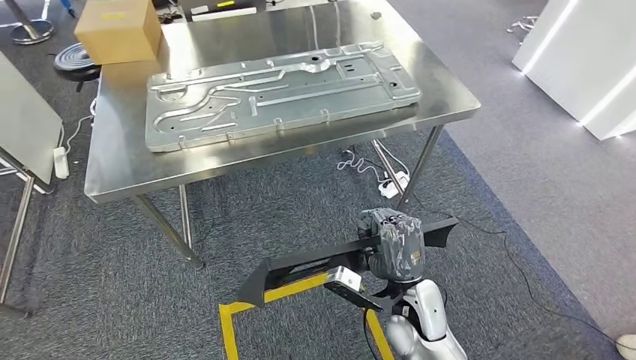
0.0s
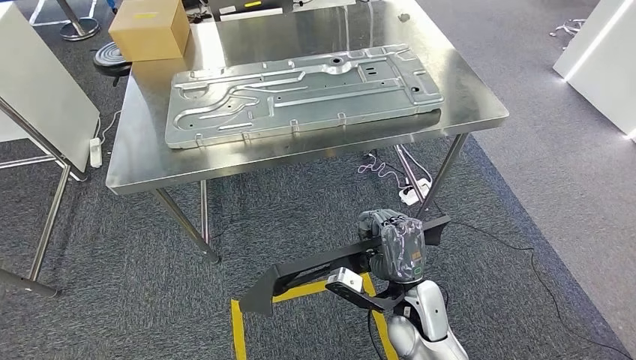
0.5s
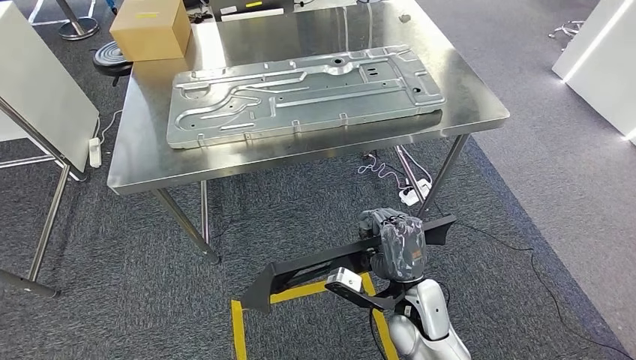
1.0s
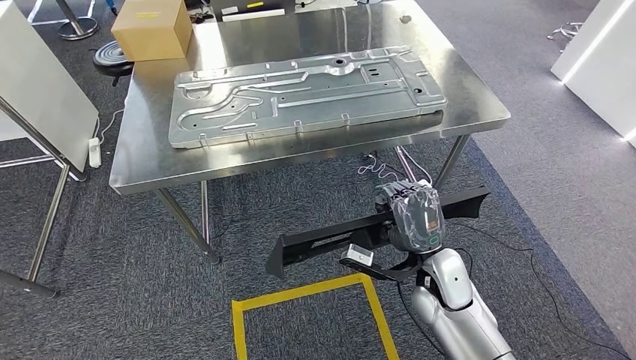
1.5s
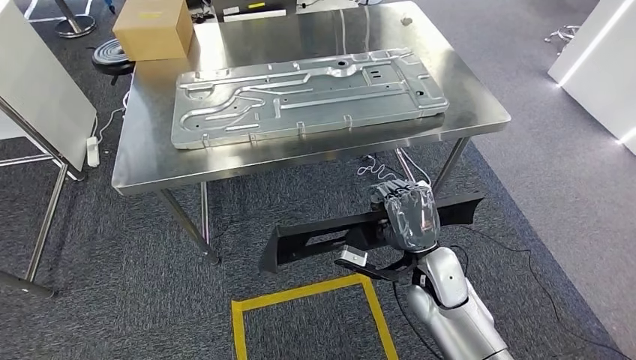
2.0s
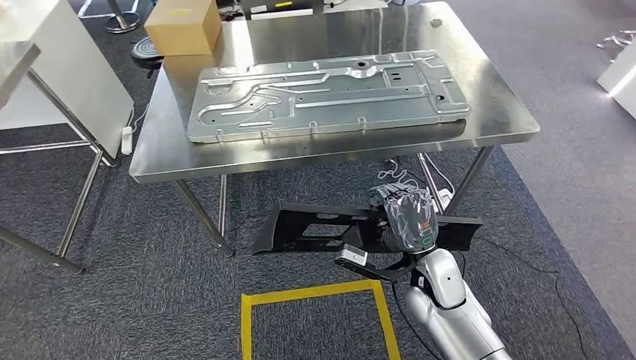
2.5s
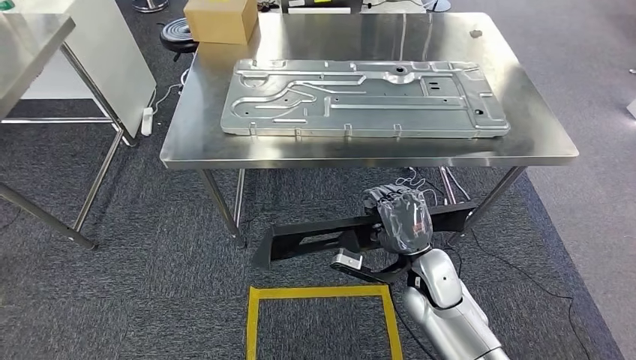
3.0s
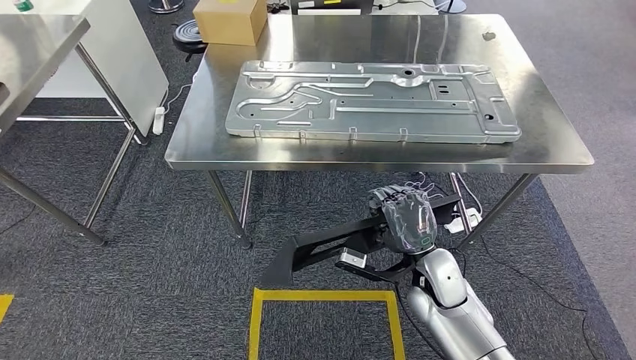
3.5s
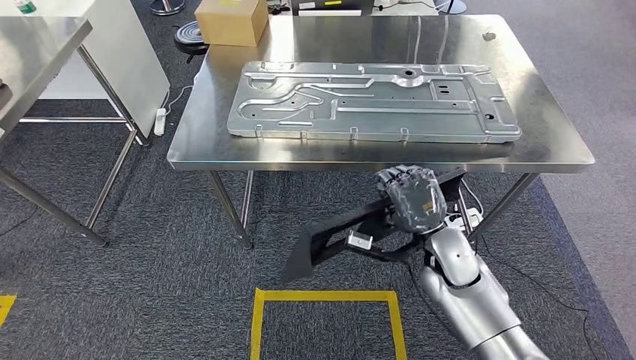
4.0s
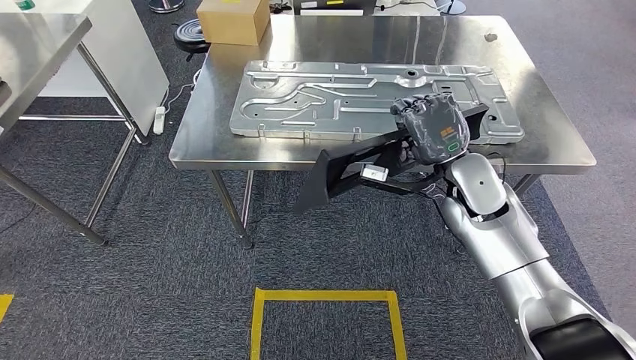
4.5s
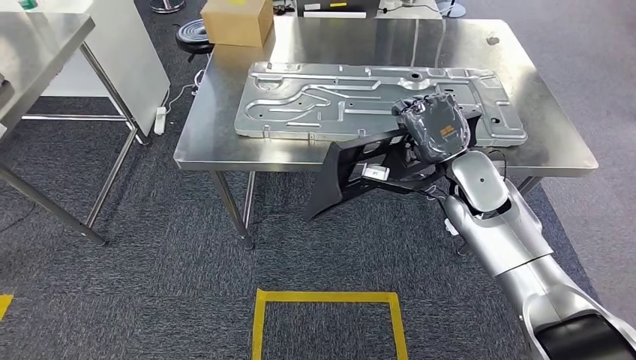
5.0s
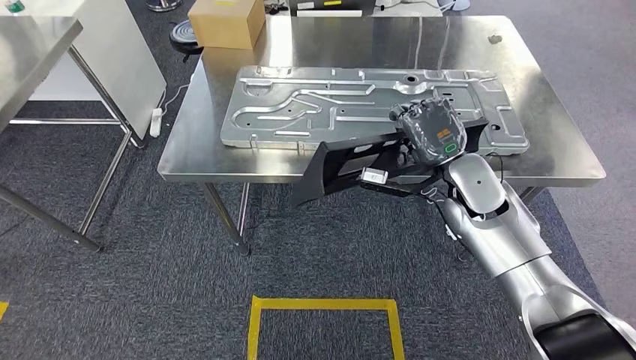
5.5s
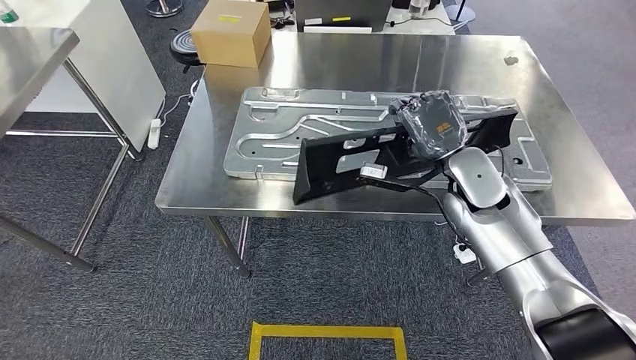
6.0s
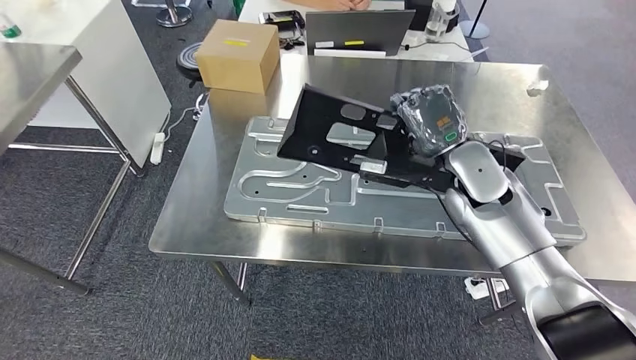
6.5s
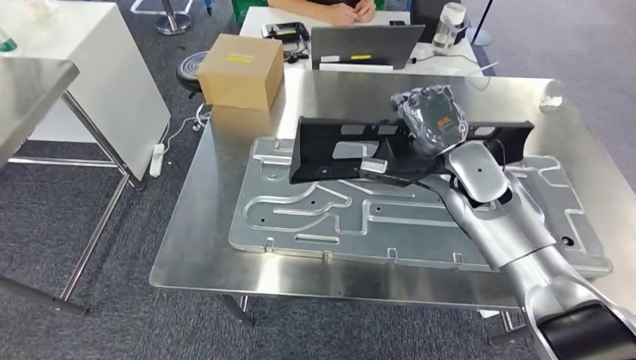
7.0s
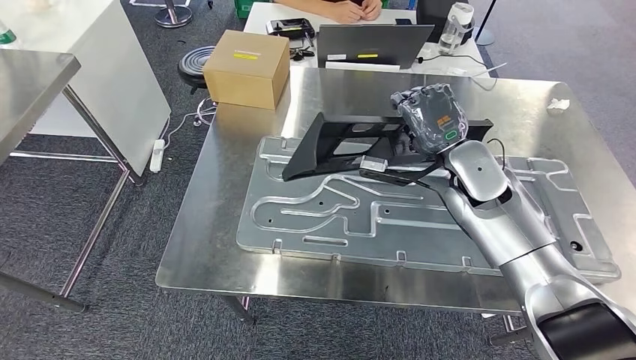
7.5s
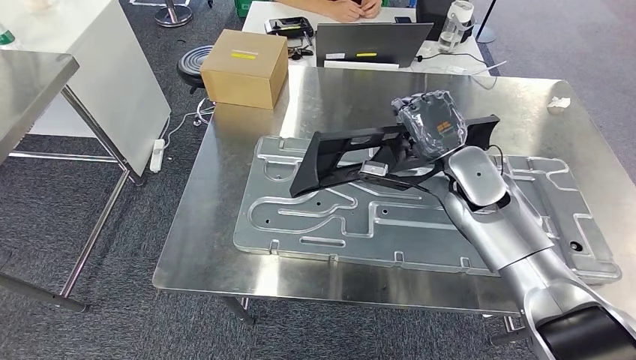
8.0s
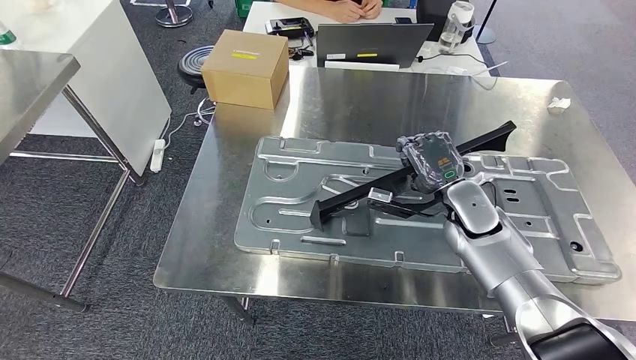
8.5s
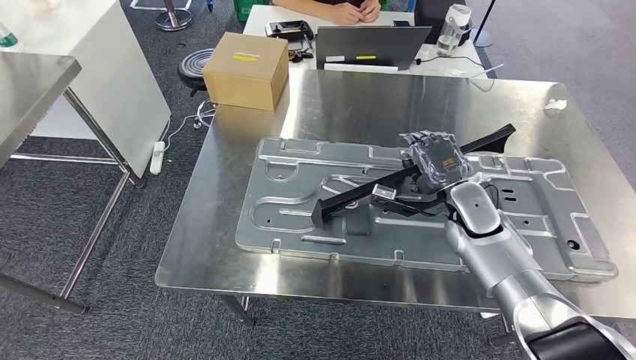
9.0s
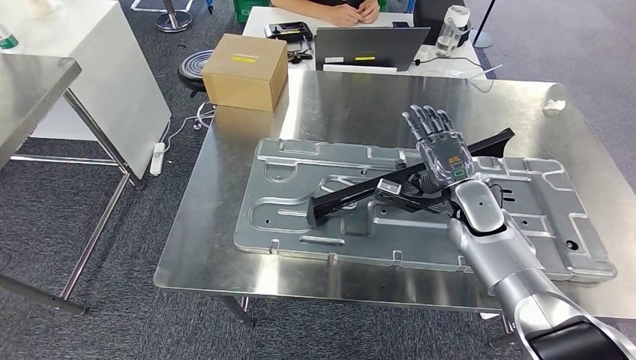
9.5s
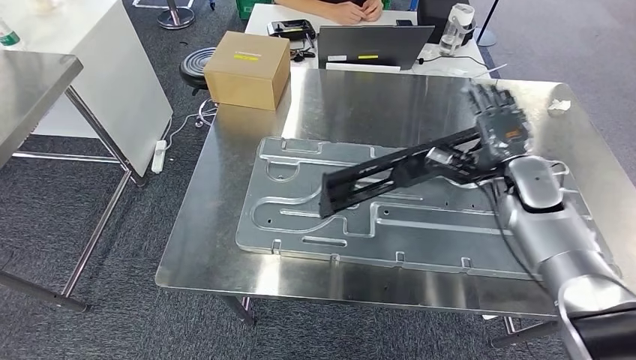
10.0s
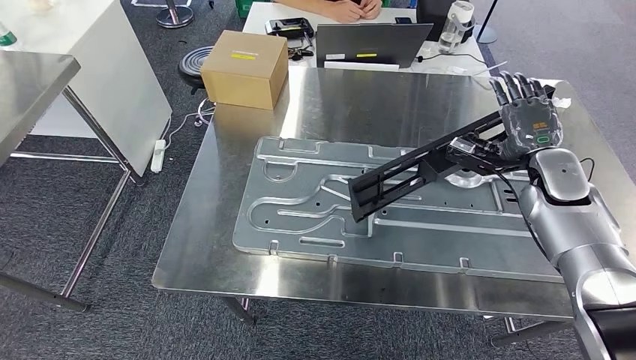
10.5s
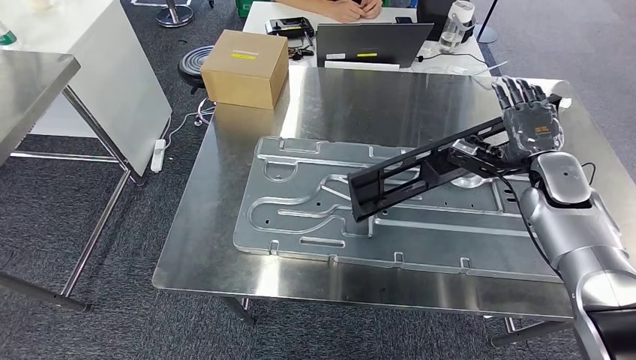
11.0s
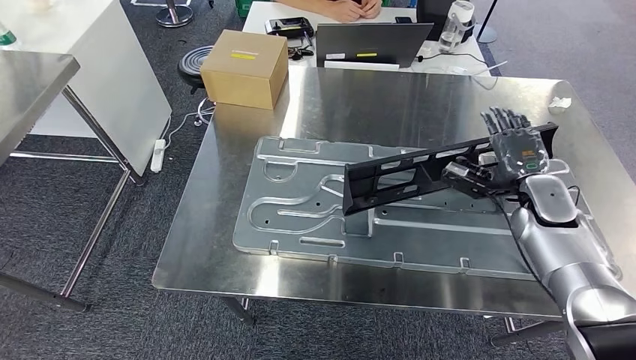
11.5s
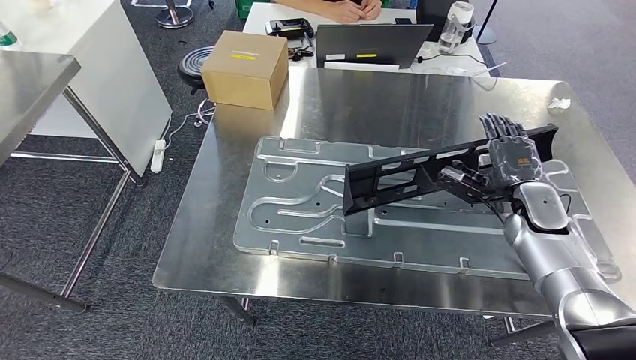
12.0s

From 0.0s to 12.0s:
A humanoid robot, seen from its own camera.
Step, from 0.0s to 3.0s: Move the large material to the workbench.
From 10.0s to 12.0s: The right hand travels downward by roughly 5 cm.

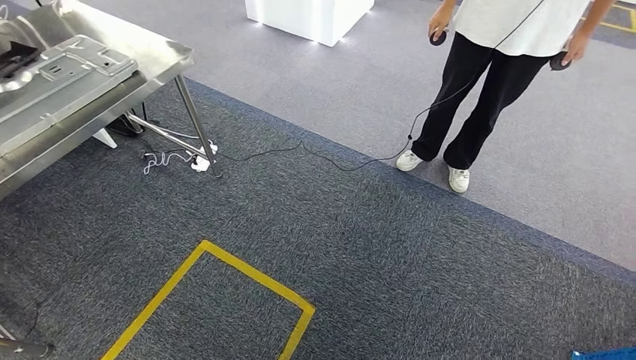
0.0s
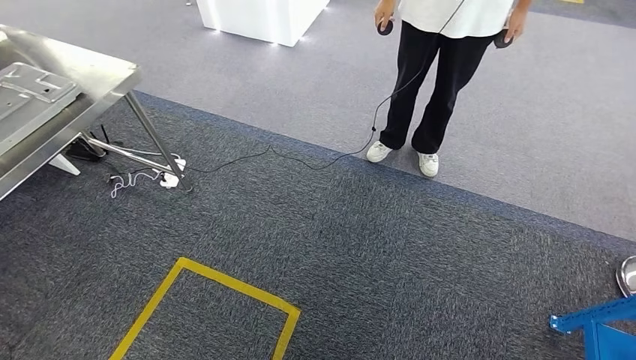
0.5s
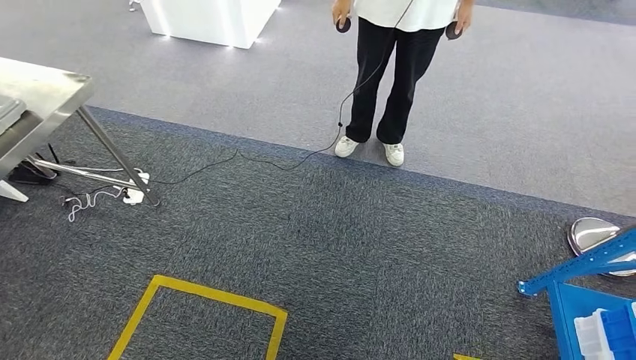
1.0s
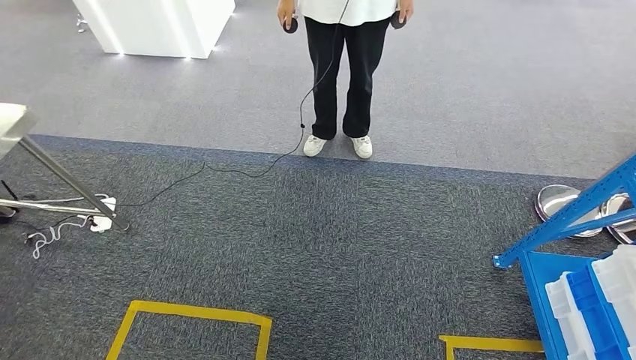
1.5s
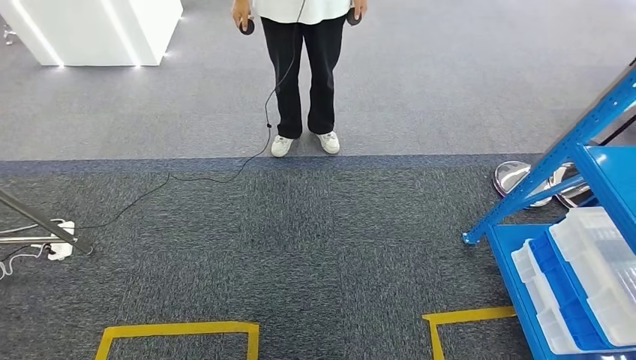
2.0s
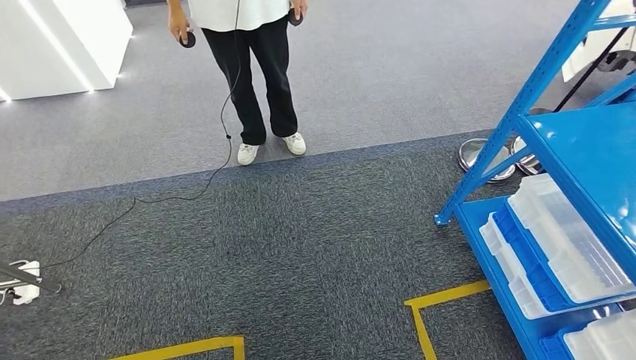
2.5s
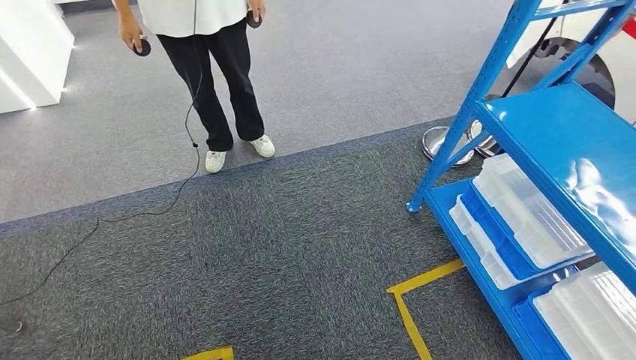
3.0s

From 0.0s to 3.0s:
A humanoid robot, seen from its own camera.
Step, from 0.0s to 3.0s: Return to the initial position at the shelf.
